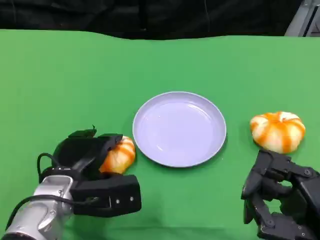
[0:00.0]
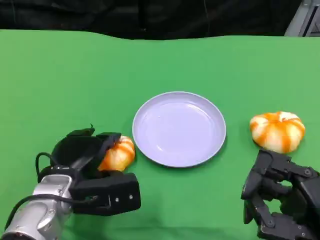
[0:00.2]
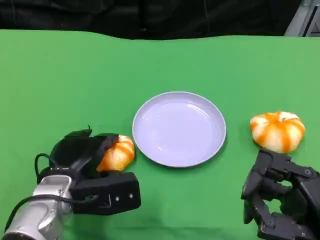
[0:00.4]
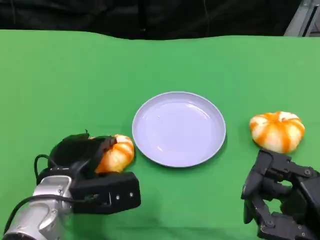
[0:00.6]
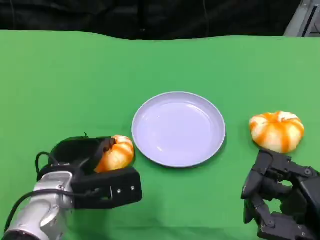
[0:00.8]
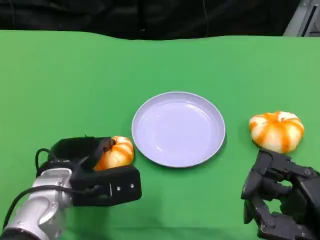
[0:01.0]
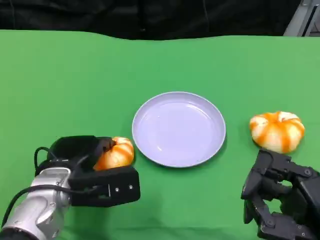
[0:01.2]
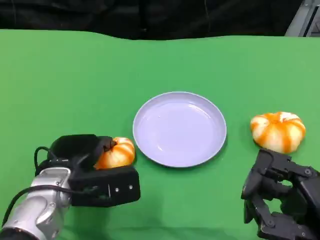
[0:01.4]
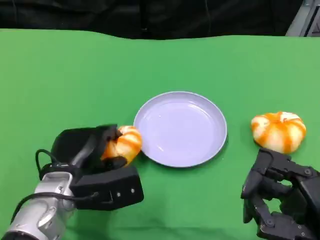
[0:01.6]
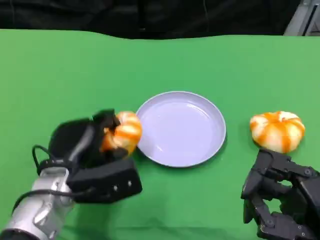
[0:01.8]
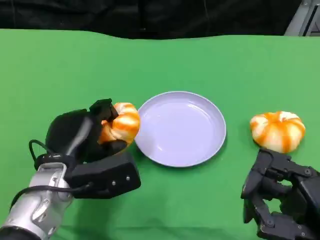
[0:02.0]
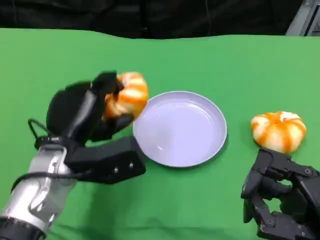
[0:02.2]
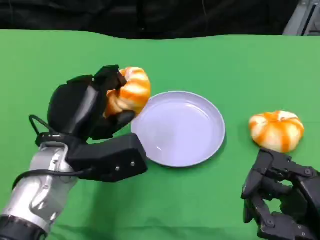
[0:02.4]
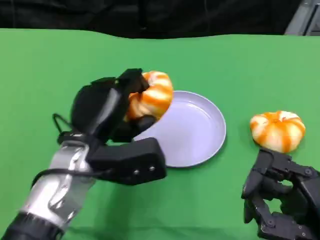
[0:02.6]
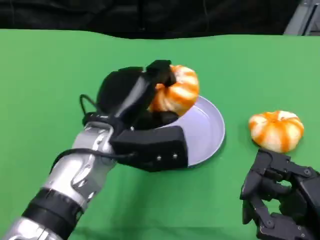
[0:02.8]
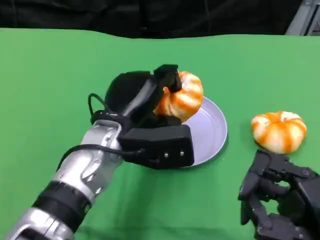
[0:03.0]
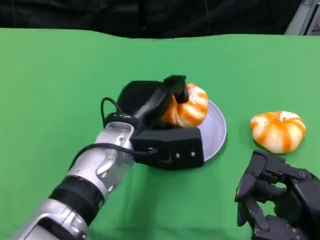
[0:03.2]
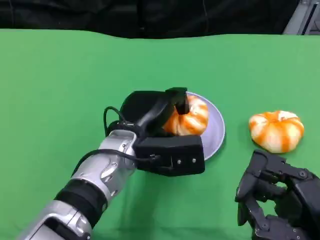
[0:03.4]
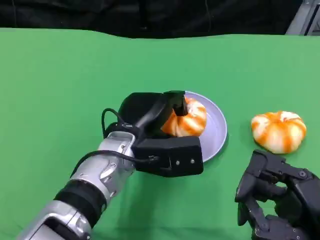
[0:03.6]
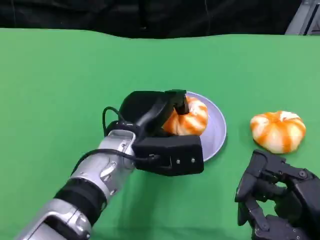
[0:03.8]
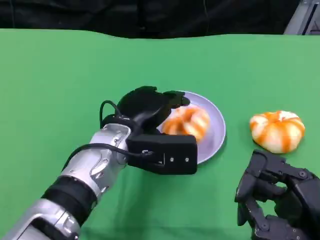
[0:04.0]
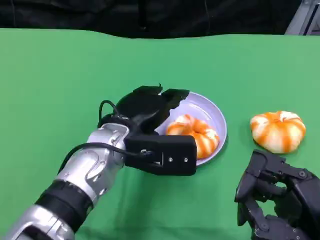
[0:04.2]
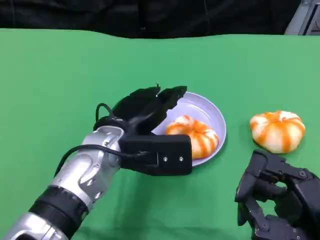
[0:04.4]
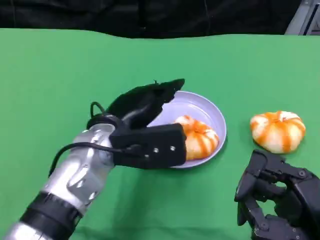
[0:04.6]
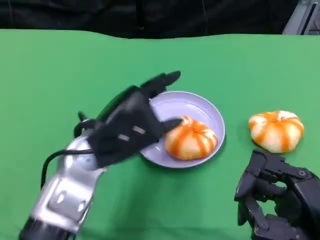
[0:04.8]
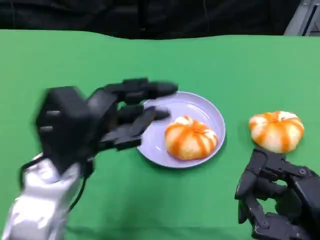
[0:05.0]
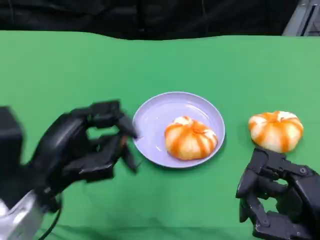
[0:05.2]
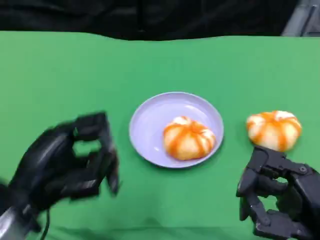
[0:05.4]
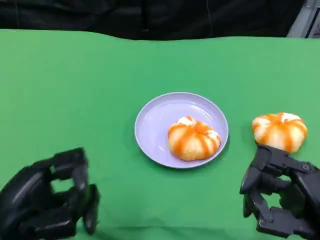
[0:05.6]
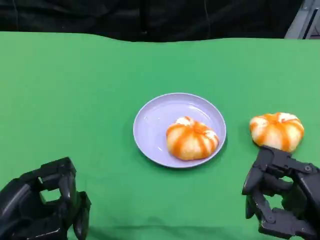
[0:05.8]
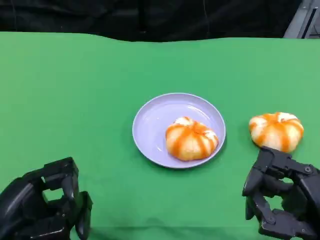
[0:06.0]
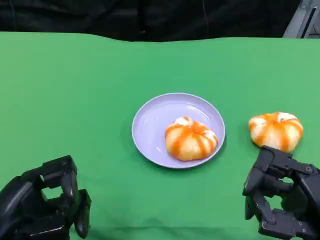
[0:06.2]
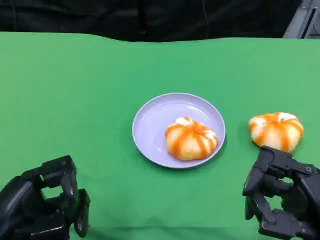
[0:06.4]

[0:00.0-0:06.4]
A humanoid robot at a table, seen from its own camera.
Task of the whole recording: Grasp the bread from the table and place it into the plate.
0:00.0 to 0:01.6: The hands stay close to where they were, moving slightly.
0:01.6 to 0:03.2: The left hand shifts approximately 10 cm to the right and upward.
0:03.2 to 0:04.8: The left hand is displaced to the left by about 5 cm.
0:04.8 to 0:06.4: The left hand heads to the left and backward, covering approximately 15 cm.

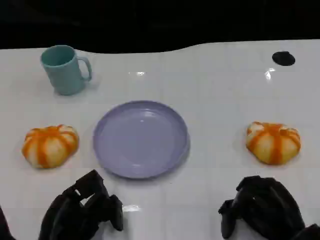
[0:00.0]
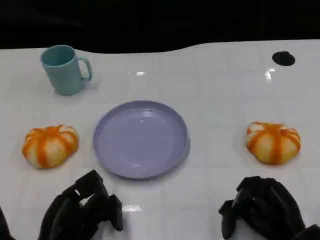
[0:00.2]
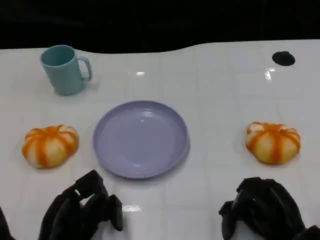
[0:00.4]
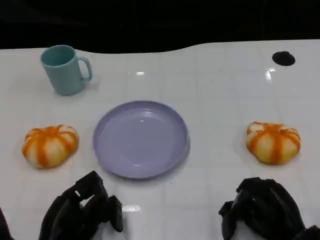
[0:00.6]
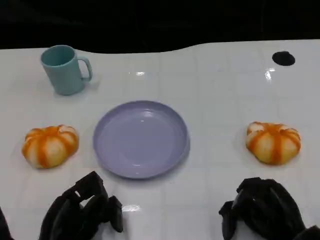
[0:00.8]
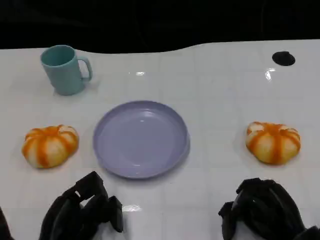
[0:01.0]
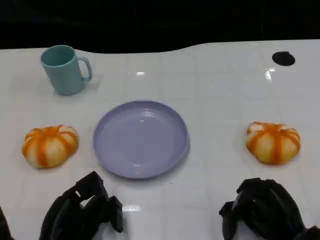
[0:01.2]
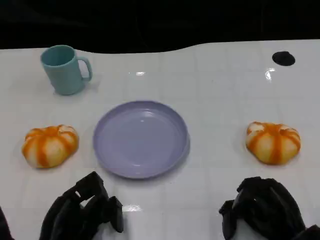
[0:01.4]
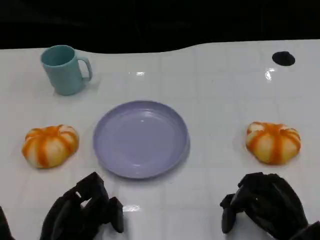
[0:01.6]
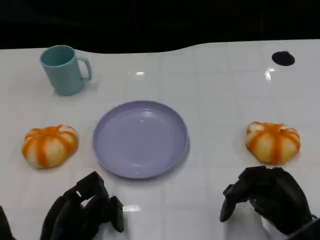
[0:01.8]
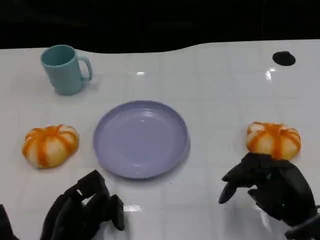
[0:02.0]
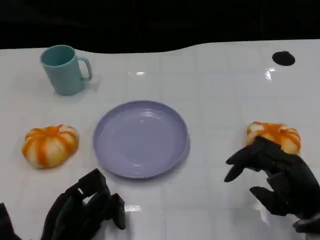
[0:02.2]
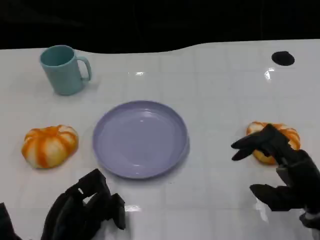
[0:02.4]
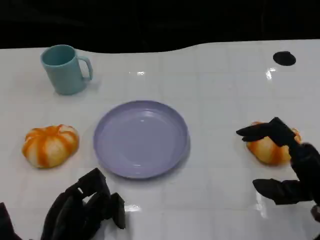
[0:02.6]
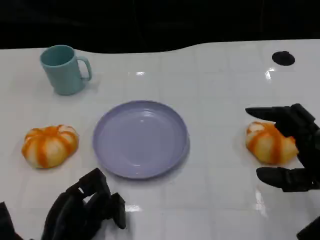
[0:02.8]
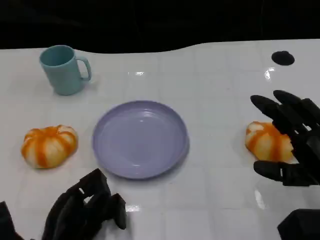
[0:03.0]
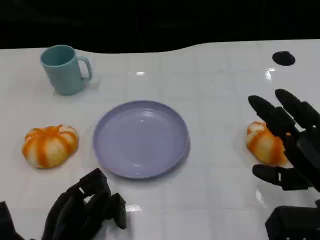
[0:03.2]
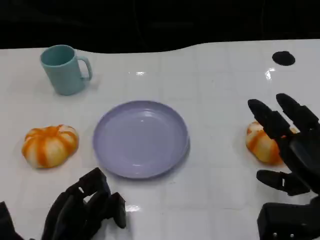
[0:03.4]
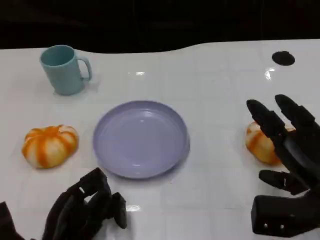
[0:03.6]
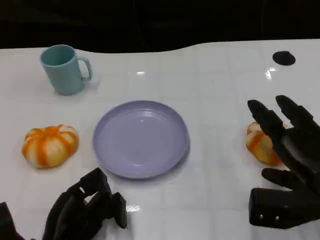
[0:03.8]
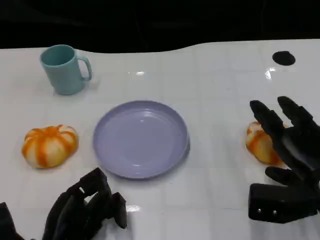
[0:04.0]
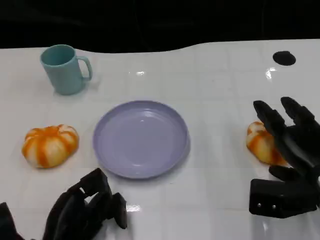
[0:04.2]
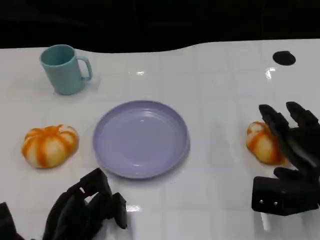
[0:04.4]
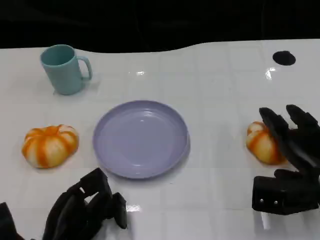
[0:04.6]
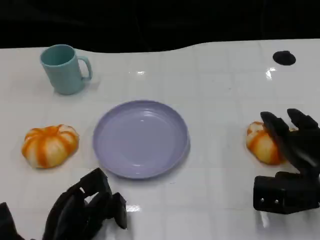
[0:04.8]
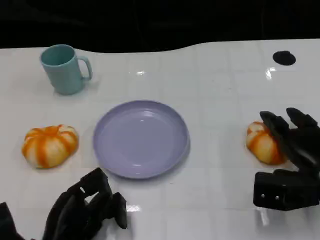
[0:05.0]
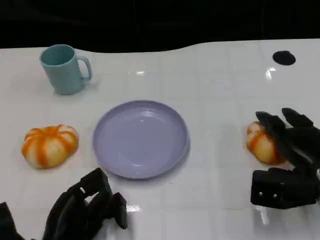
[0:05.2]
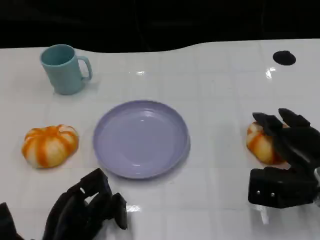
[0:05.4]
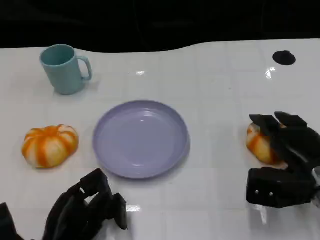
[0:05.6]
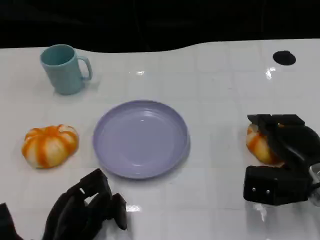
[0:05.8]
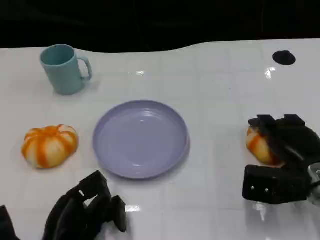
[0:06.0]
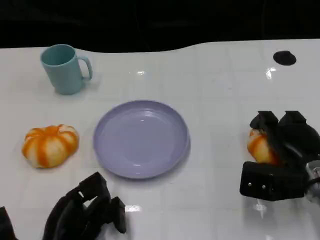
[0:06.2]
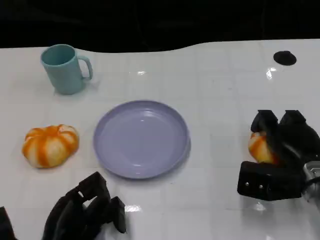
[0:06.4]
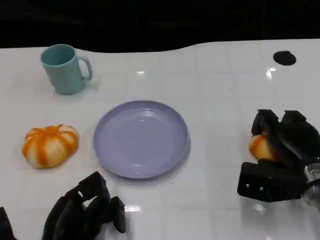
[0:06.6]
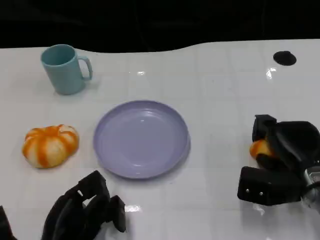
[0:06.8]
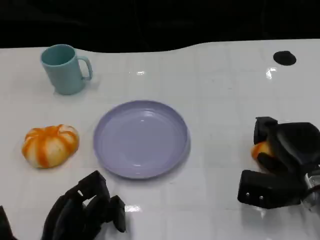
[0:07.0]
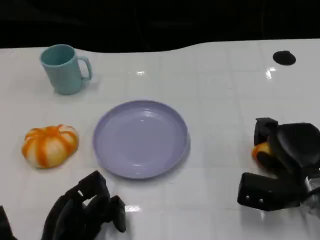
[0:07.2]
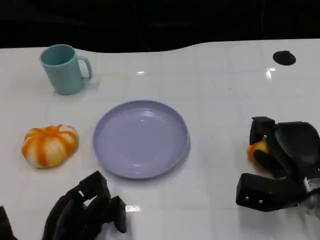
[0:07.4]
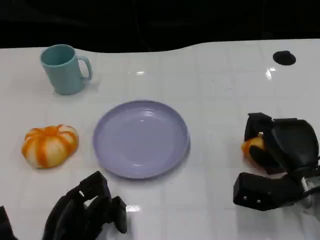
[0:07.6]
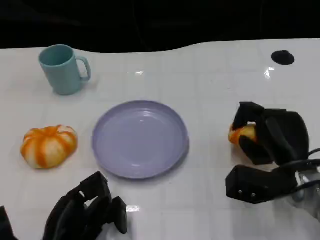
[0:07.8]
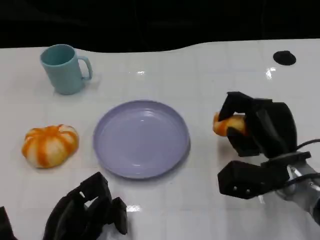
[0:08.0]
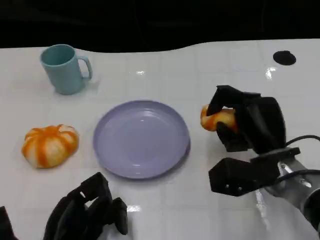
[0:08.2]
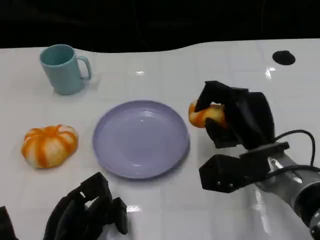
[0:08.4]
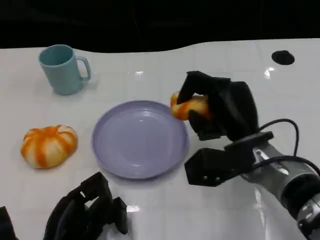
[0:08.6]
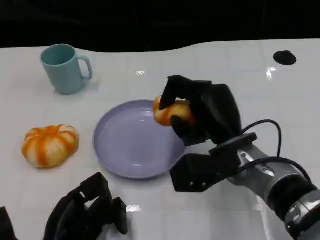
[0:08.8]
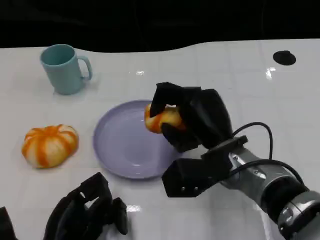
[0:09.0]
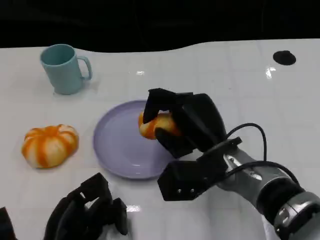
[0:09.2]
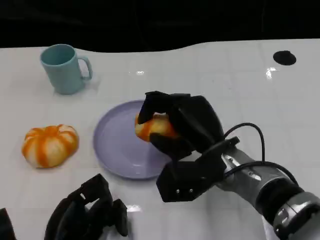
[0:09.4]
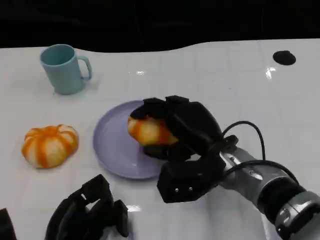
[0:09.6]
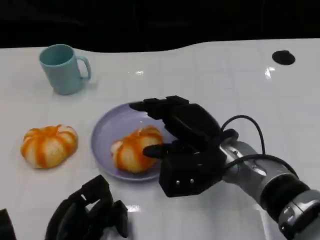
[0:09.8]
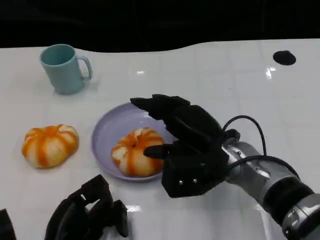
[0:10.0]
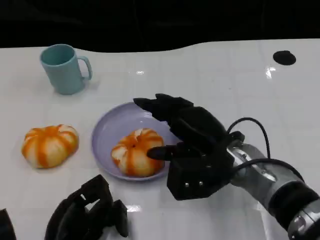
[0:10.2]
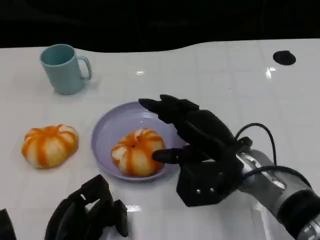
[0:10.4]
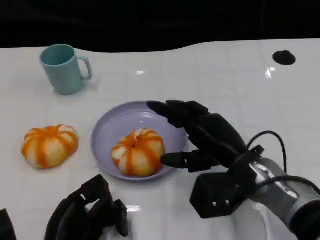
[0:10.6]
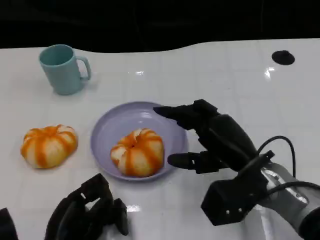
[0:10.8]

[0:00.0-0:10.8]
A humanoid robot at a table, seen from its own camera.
Task of the whole recording: Grasp the bread from the table and place it into the plate.
0:00.0 to 0:01.6: There are only small adjustments of the hands.
0:01.6 to 0:03.0: The right hand heads upward, covering some 10 cm.
0:03.0 to 0:04.6: The right hand travels forward and downward by some 5 cm.
0:04.6 to 0:06.2: The hands make only small movements.
0:07.8 to 0:09.2: The right hand shifts approximately 10 cm to the left.
0:09.2 to 0:10.8: The right hand travels to the right by some 5 cm.

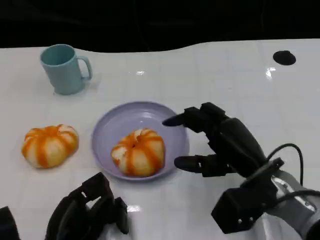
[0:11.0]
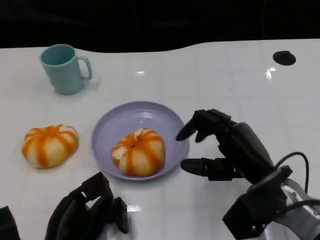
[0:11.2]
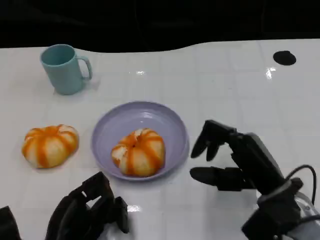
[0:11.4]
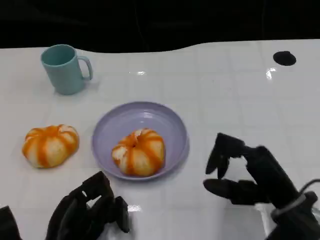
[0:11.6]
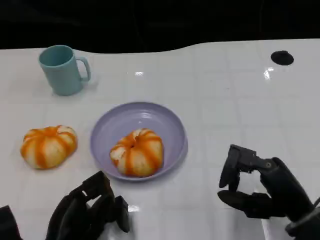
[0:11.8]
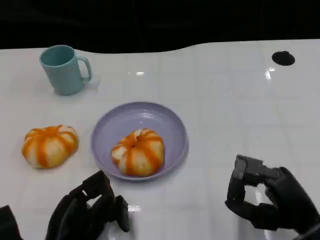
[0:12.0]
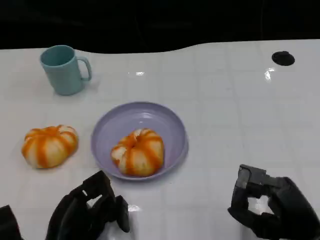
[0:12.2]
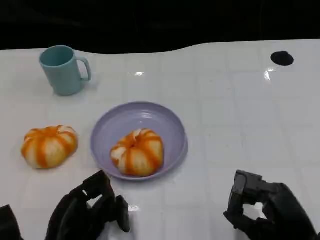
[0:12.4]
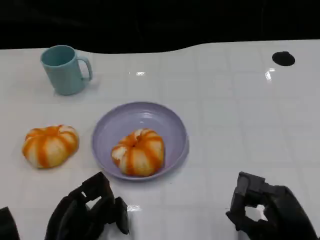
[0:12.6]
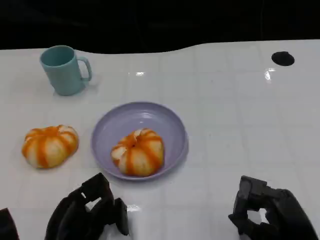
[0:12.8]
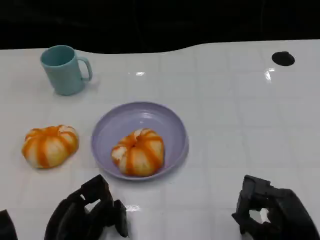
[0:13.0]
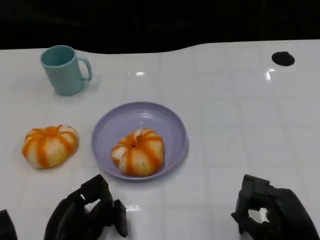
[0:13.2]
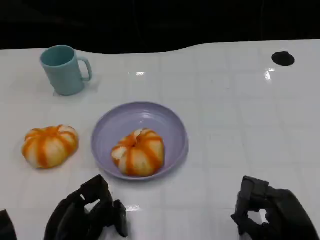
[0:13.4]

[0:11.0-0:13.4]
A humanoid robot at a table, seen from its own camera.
Task of the whole recording: Grasp the bread from the table and place it into the plate.
0:11.0 to 0:12.2: The right hand is displaced backward and to the right by approximately 10 cm.
0:12.2 to 0:13.4: The hands move only a little.

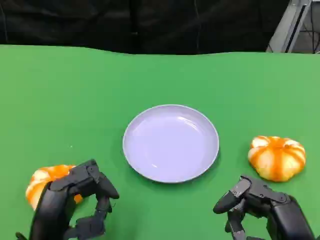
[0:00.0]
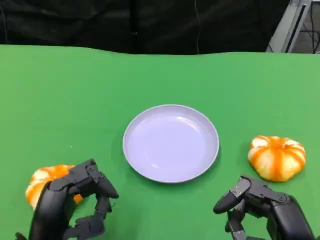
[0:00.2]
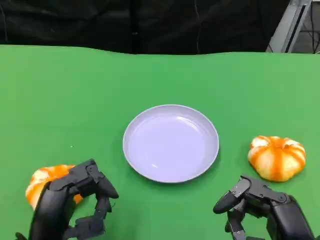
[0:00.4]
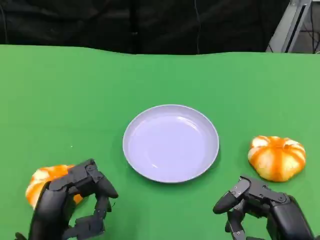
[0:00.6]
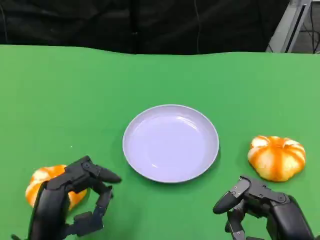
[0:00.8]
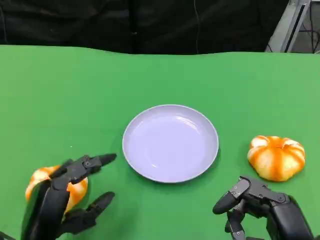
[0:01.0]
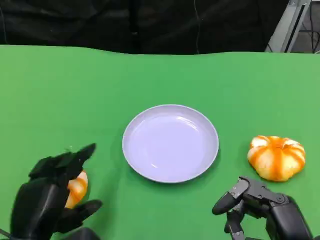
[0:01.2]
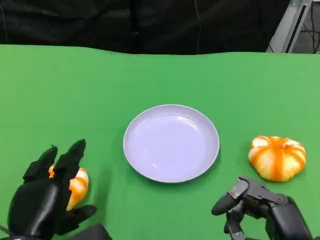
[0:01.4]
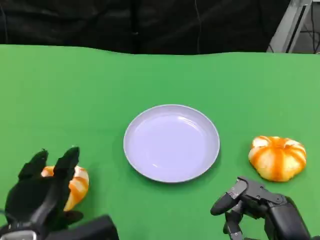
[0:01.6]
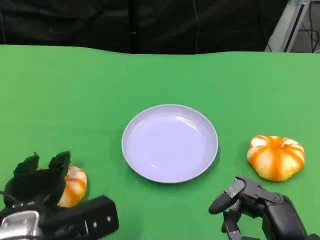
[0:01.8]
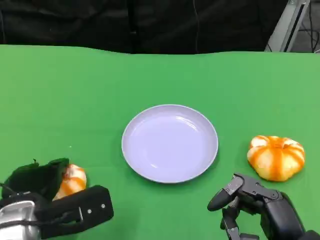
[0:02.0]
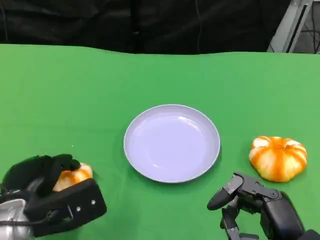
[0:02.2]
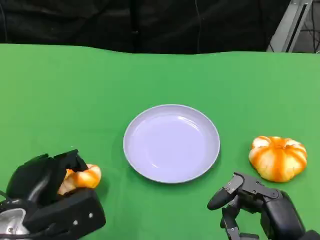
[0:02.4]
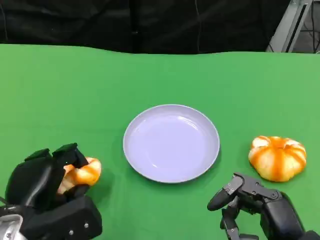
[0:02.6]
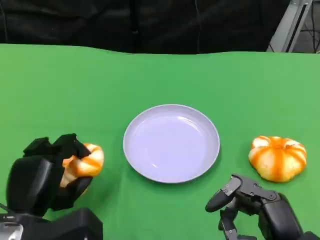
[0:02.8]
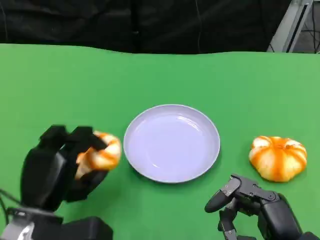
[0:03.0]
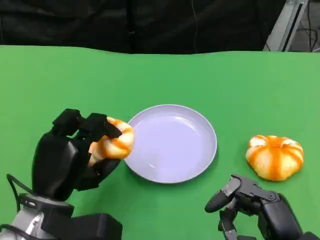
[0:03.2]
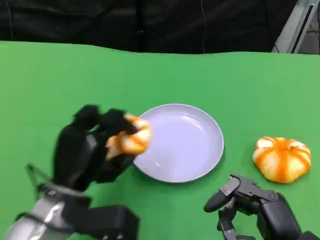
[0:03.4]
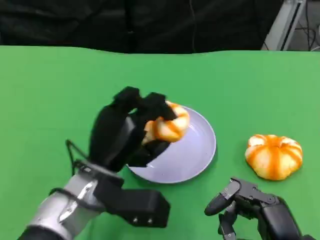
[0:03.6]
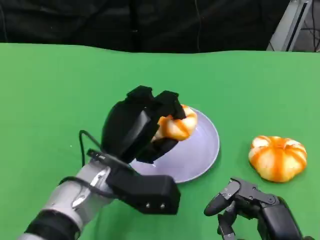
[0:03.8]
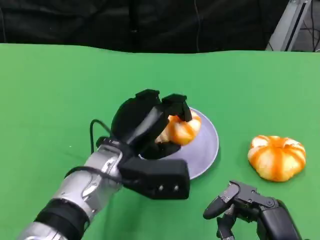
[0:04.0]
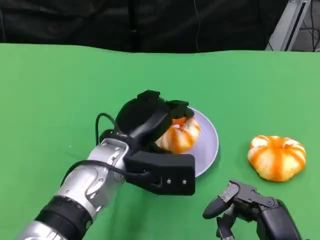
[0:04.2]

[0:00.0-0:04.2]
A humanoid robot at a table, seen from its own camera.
Task of the whole recording: Grasp the bread from the table and place it into the plate.
0:02.8 to 0:04.2: The left hand heads to the right, forward and upward, covering some 15 cm.
